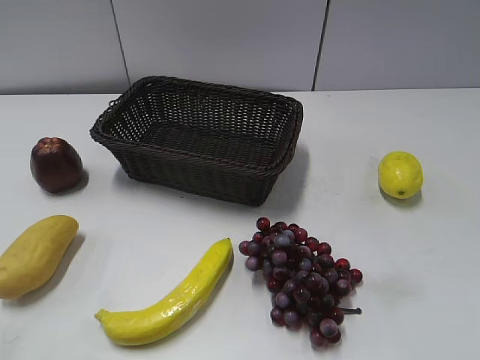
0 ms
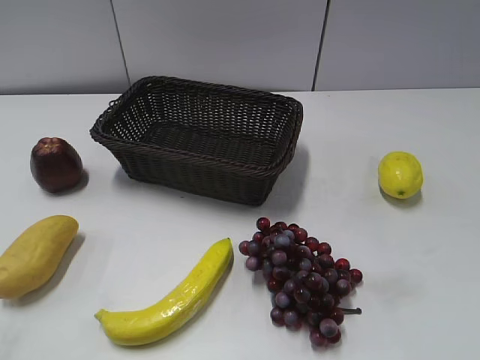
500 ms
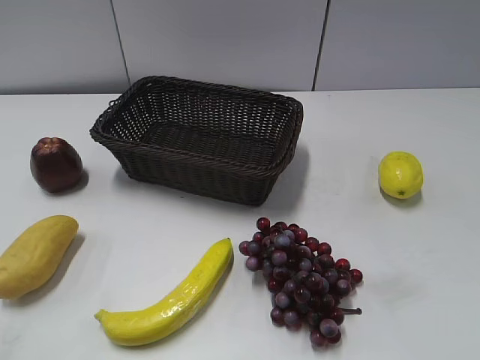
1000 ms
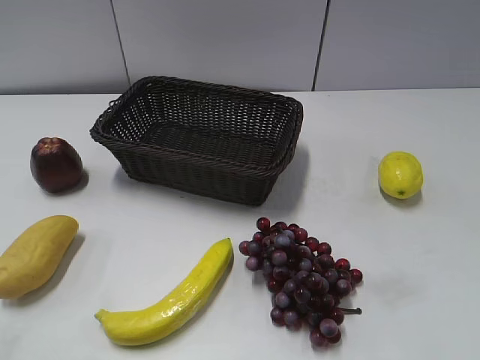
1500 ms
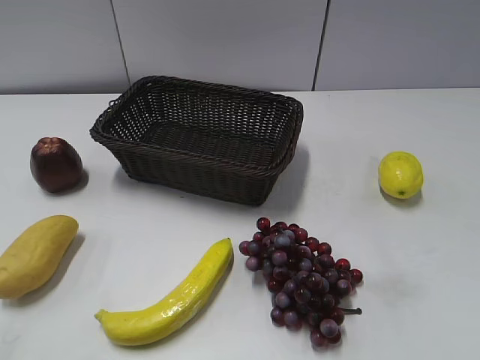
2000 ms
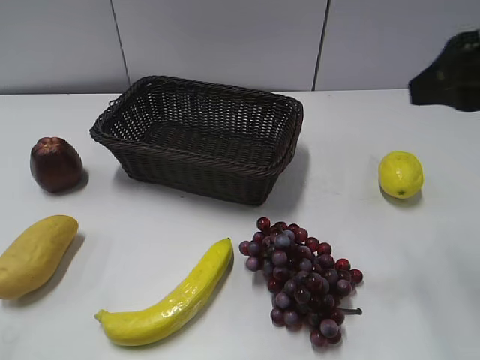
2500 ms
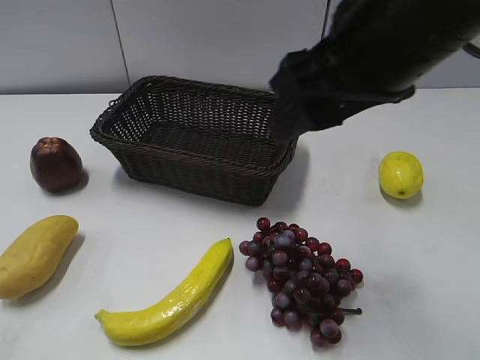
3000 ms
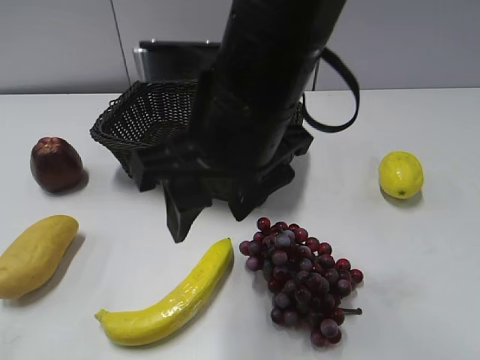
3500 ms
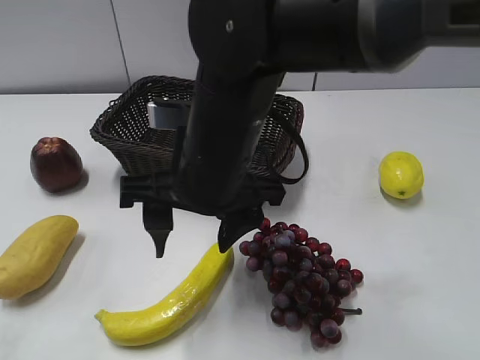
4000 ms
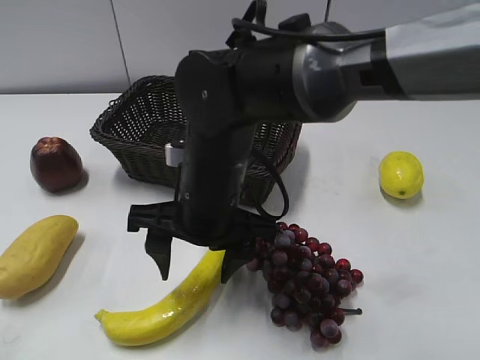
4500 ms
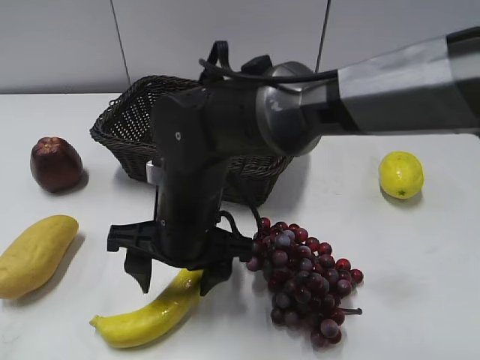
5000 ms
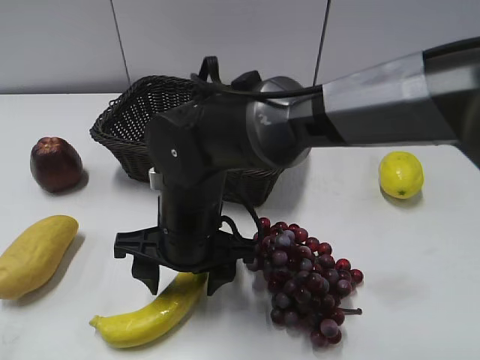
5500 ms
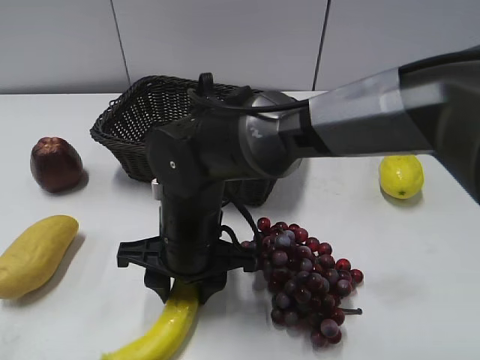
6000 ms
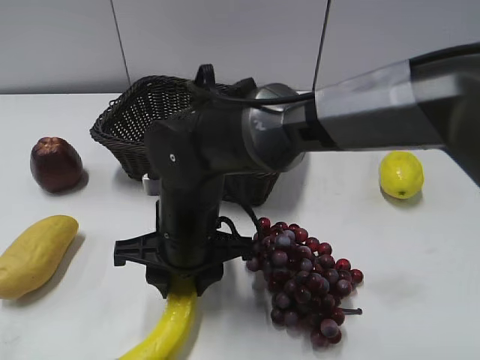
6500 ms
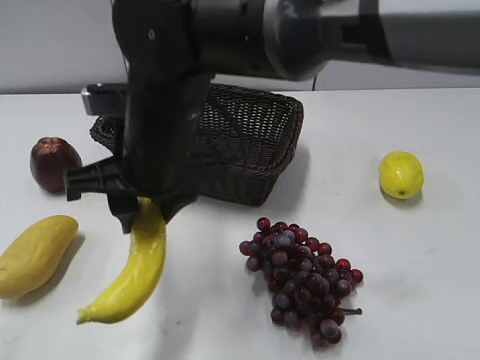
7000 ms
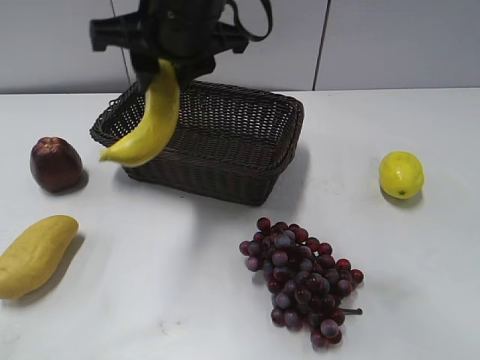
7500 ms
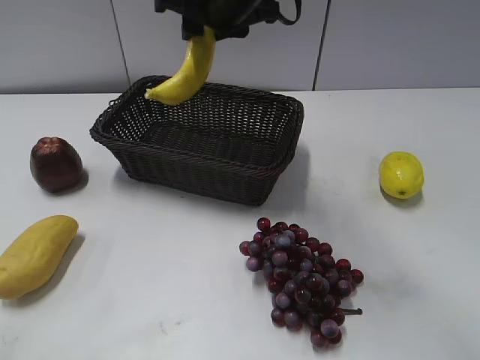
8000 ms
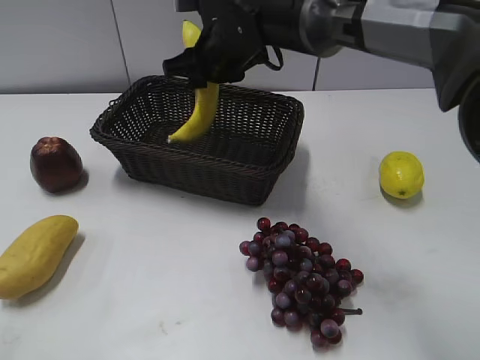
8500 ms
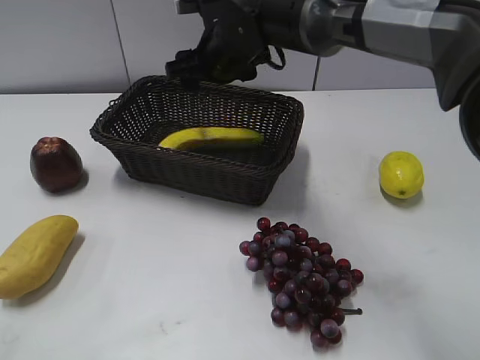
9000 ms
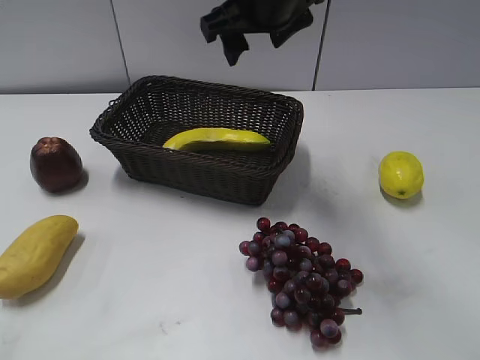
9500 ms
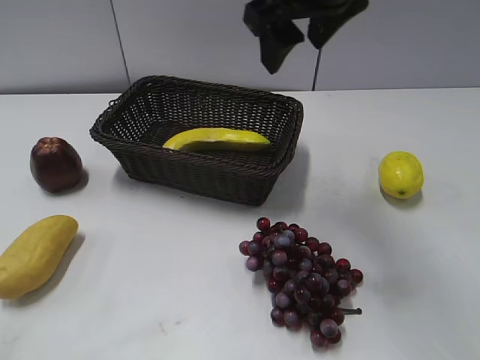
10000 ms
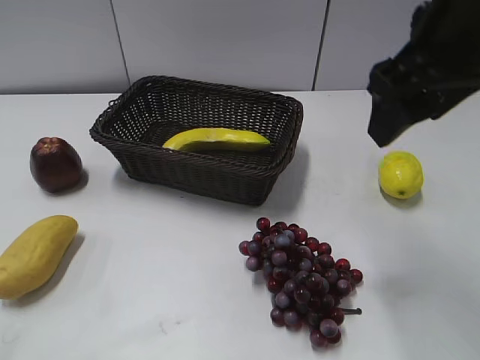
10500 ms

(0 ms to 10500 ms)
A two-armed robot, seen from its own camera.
Step, 2500 ms - 6000 ms: Grasp the banana with right gripper.
Step, 6500 ms - 9000 ms: Place the banana in the basket with right gripper.
2000 ms - 4000 ms: The right gripper travels to the left by about 30 cm.
4000 ms - 6500 ms: The right gripper goes some 10 cm downward, and closes its fingers.
6500 ms - 8500 ms: The right gripper goes about 20 cm forward and upward.
8500 ms - 10500 ms: The right gripper shifts about 25 cm to the right, backward and upward, and opens its fingers.

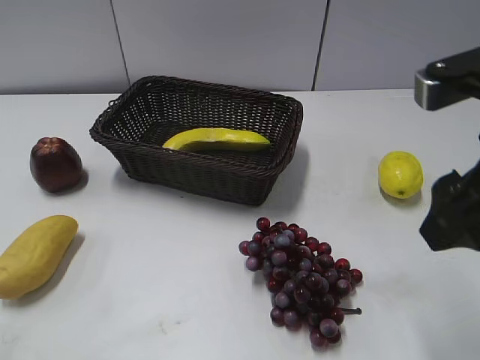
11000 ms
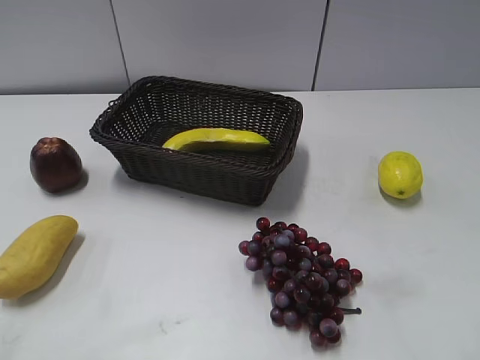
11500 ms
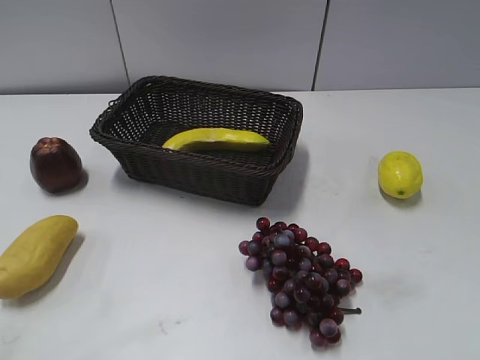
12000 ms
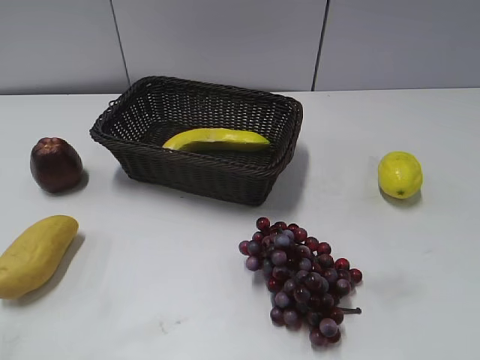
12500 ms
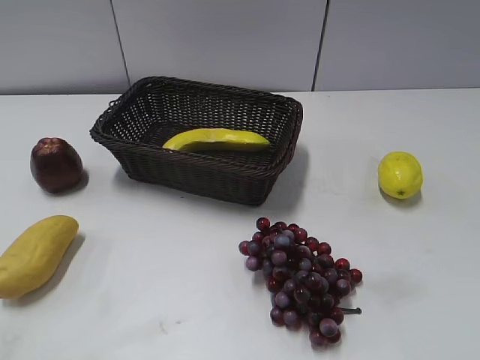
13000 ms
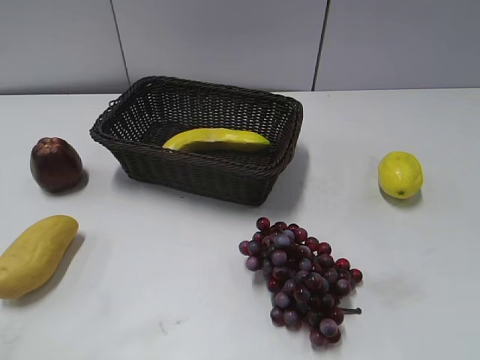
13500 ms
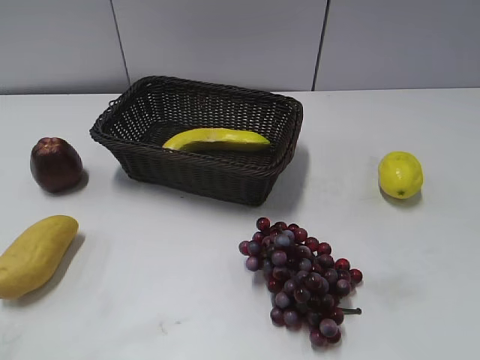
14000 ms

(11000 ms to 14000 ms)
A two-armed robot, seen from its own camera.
11000 ms - 12500 ms: The right gripper shifts roughly 20 cm backward and to the right.
